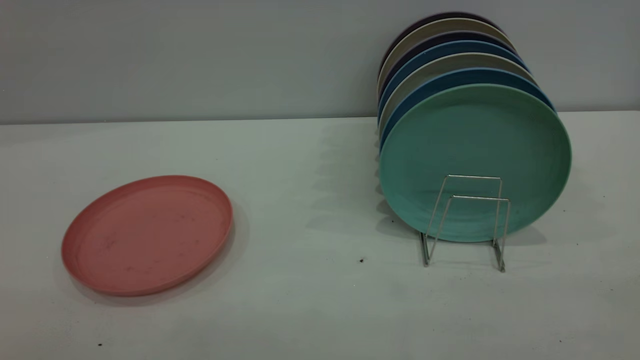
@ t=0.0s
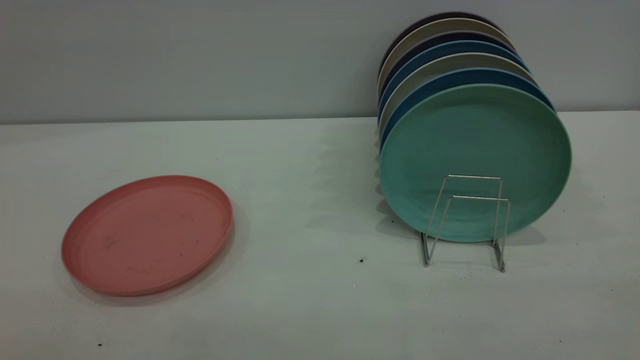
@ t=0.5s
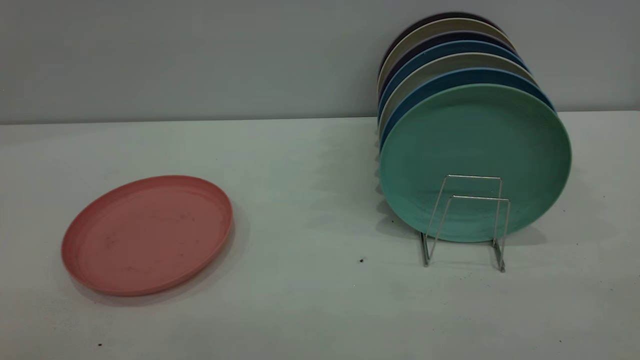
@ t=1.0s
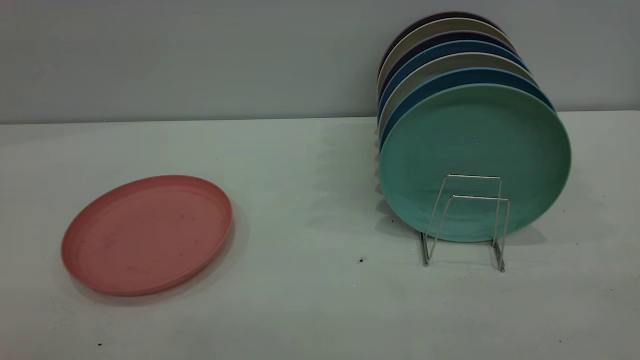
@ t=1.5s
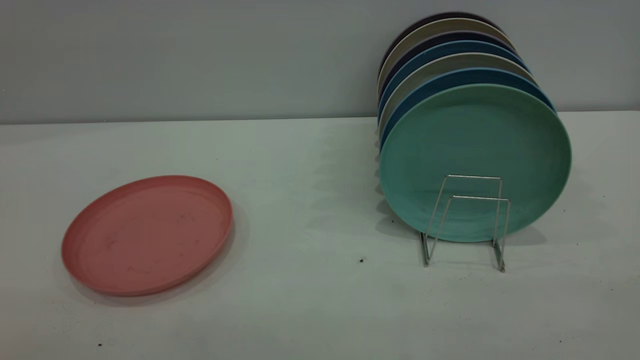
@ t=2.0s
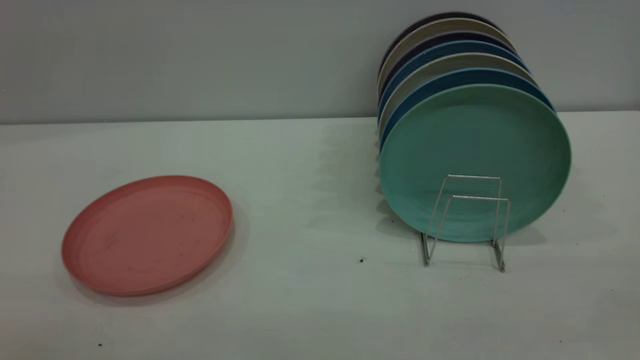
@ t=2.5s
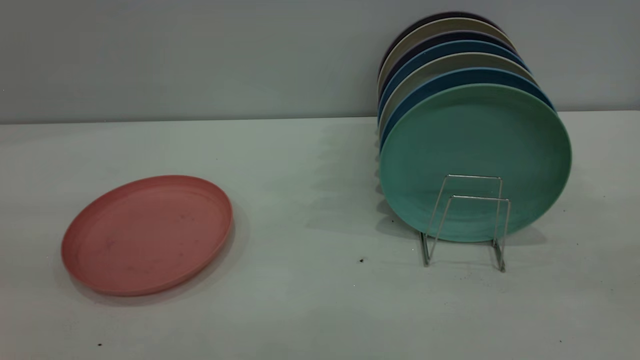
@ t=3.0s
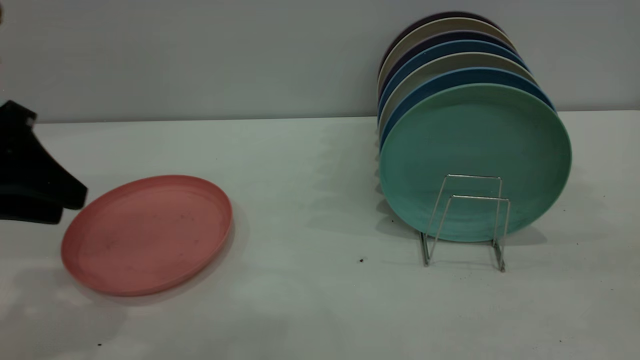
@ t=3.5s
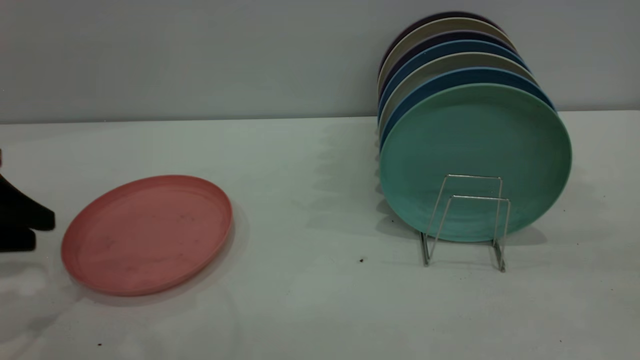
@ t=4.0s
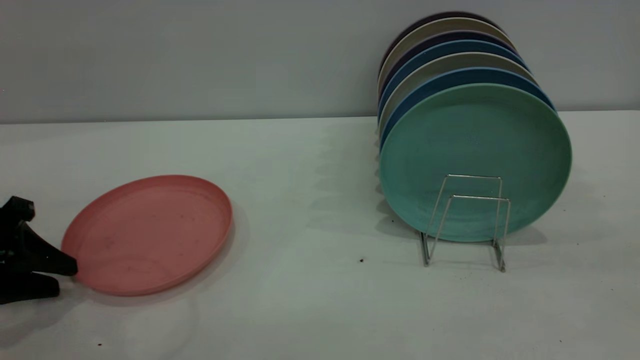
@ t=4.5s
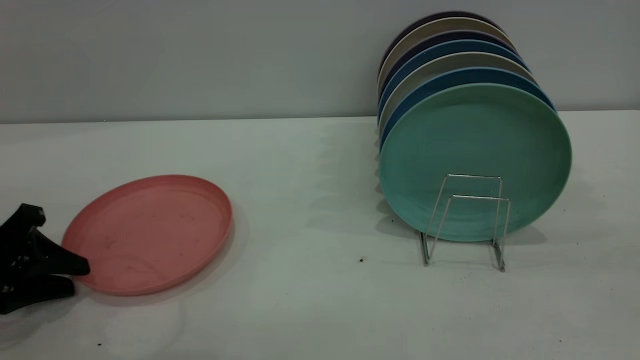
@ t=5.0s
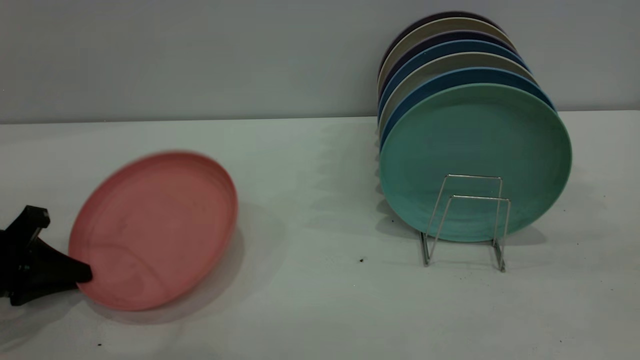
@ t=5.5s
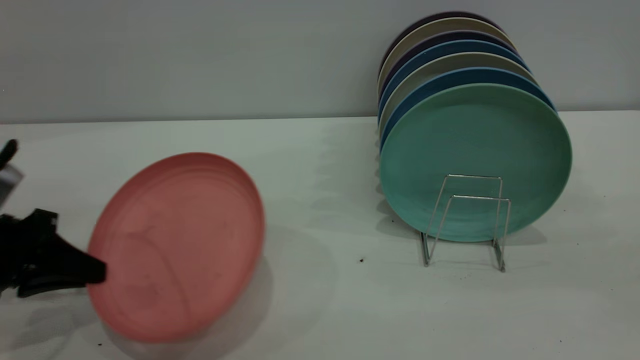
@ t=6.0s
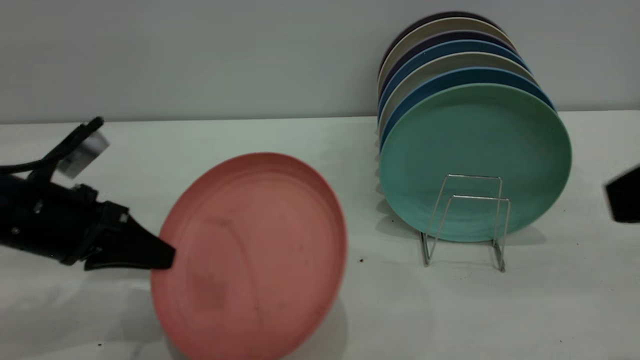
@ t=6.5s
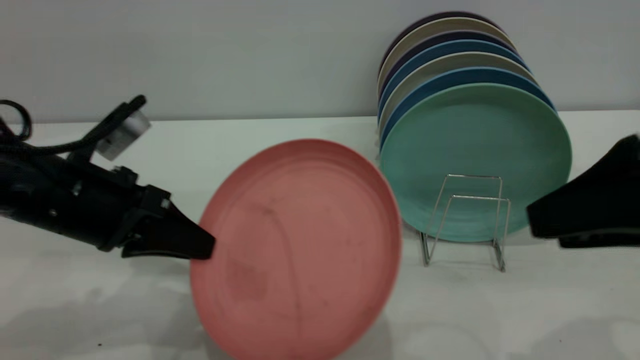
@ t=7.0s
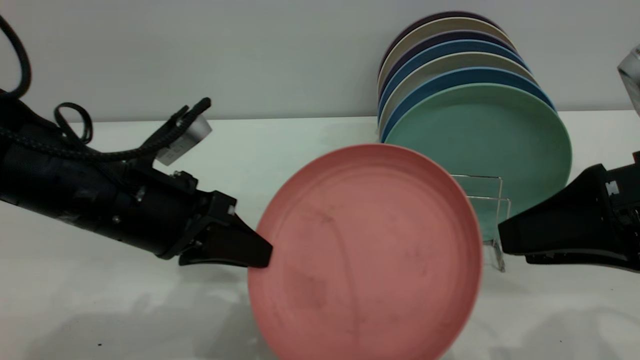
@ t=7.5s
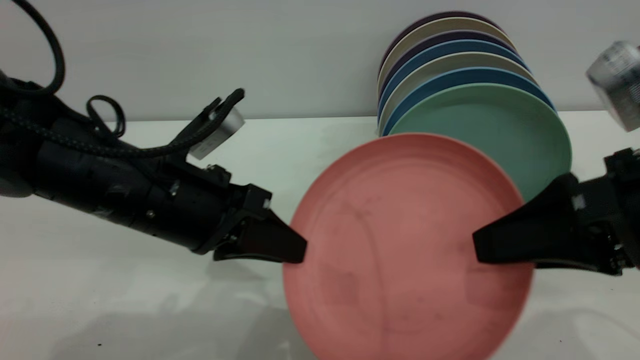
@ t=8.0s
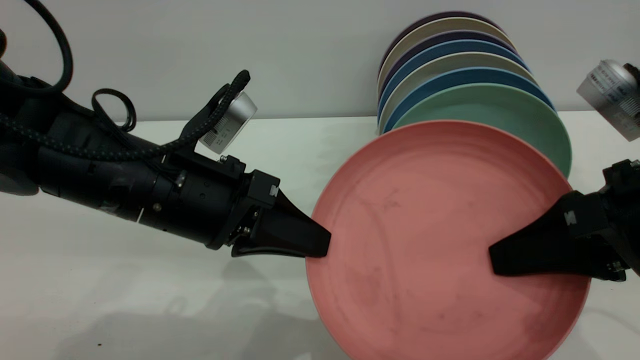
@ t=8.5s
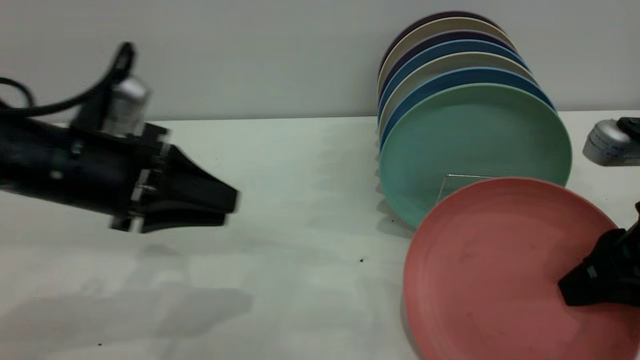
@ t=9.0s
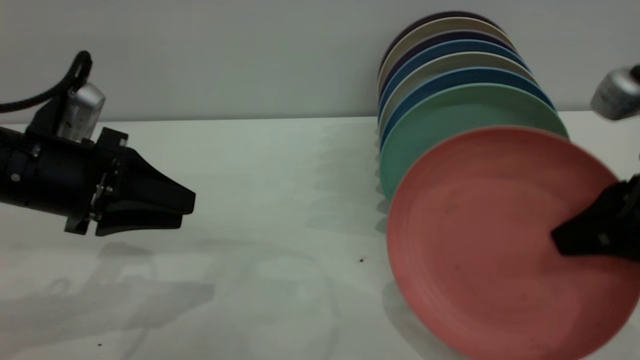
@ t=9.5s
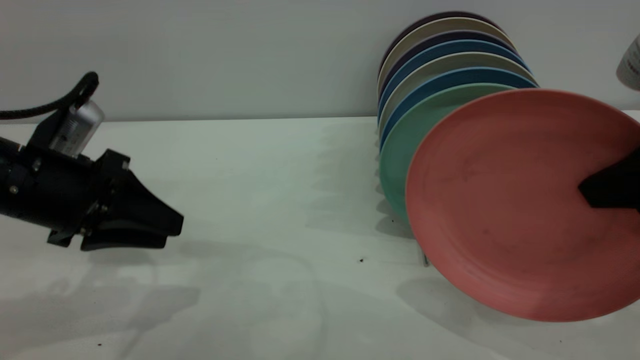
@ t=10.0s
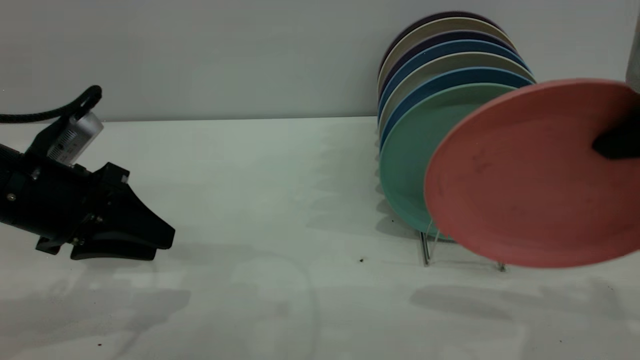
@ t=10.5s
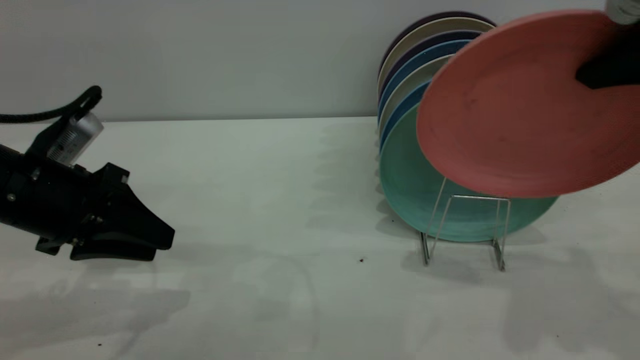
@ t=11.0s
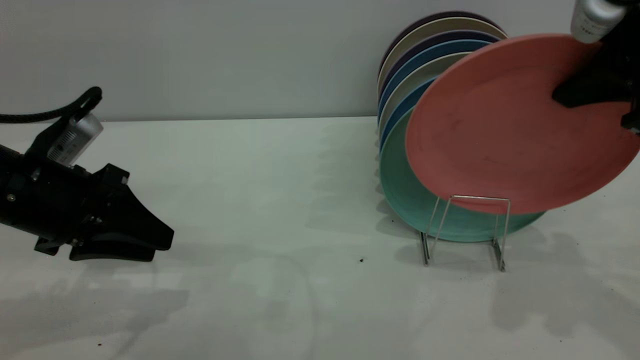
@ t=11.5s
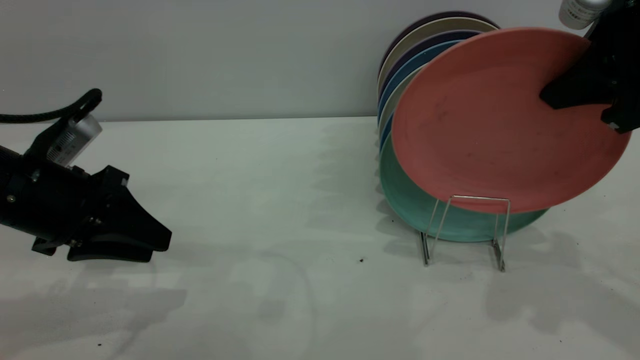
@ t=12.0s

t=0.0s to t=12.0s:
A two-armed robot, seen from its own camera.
Task of the whole recording: put the plate on the plate rack.
Step, t=0.0s to t=6.0s: Pick up the plate with the left gripper.
Step, t=6.5s to t=8.5s: Pass the plate from the left gripper to the right gripper.
t=0.0s to t=2.0s: The two grippers keep their place.
t=2.0s to t=4.0s: The left gripper moves forward and downward, some 35 cm.
t=4.0s to t=6.0s: The left gripper moves downward, about 5 cm, and closes its fingers.
t=6.0s to t=8.0s: The left gripper is displaced to the right by some 20 cm; the right gripper goes about 15 cm downward and forward.
t=8.0s to t=10.0s: The right gripper changes place by roughly 5 cm, and closes up. Meanwhile the left gripper goes approximately 10 cm to the left, and opens its fingers.
t=10.0s to t=12.0s: The right gripper is displaced forward by some 10 cm.

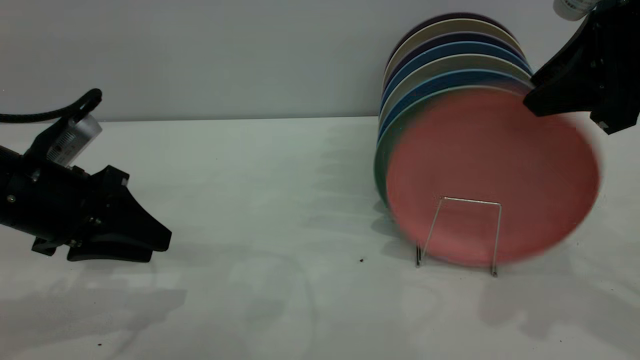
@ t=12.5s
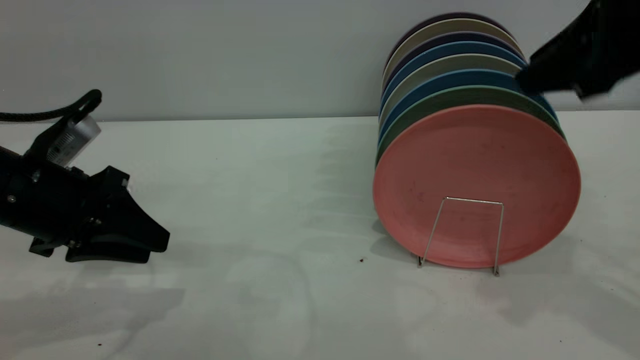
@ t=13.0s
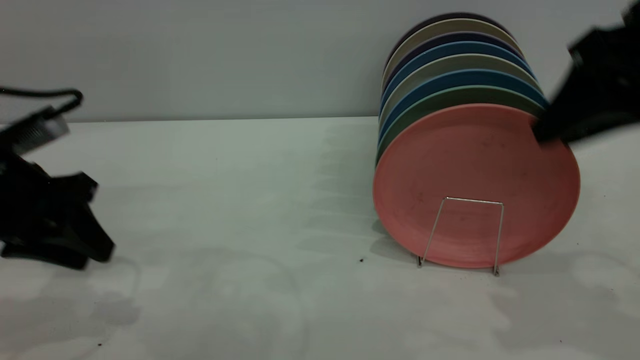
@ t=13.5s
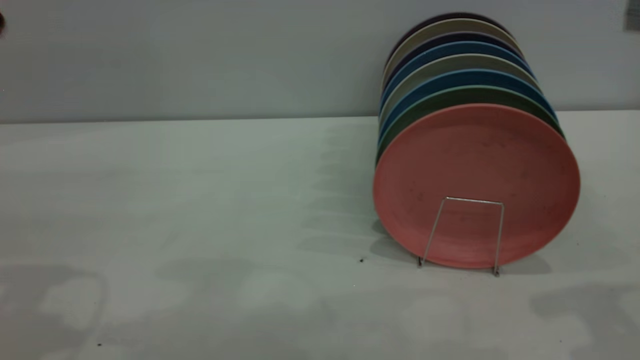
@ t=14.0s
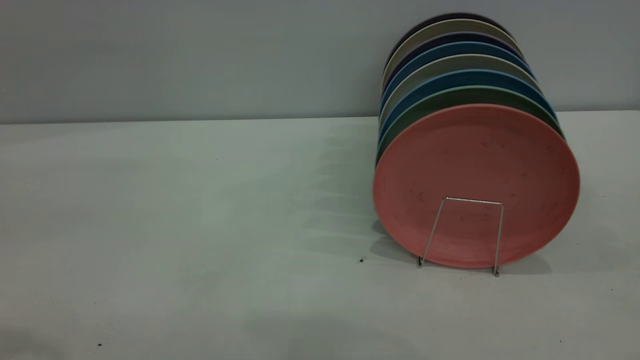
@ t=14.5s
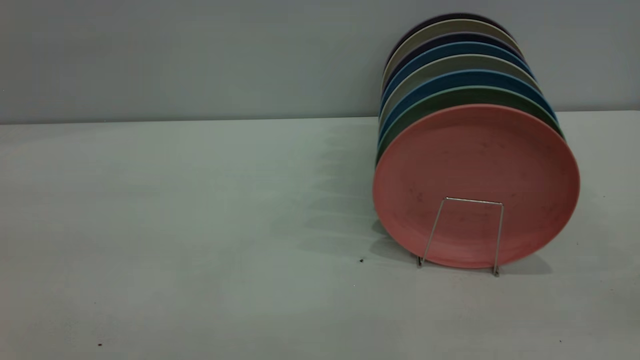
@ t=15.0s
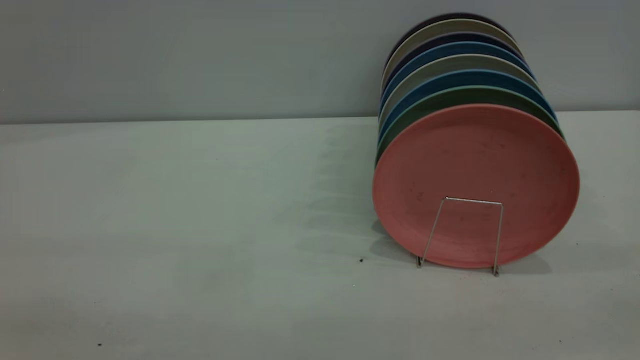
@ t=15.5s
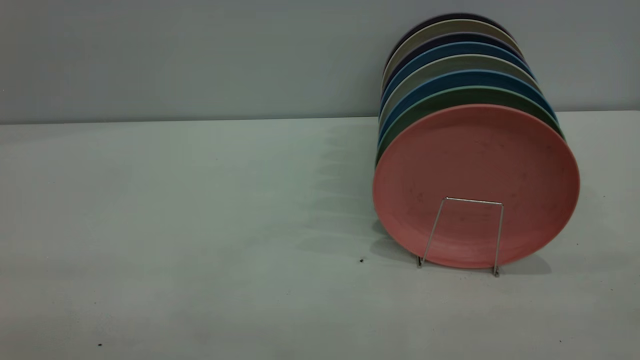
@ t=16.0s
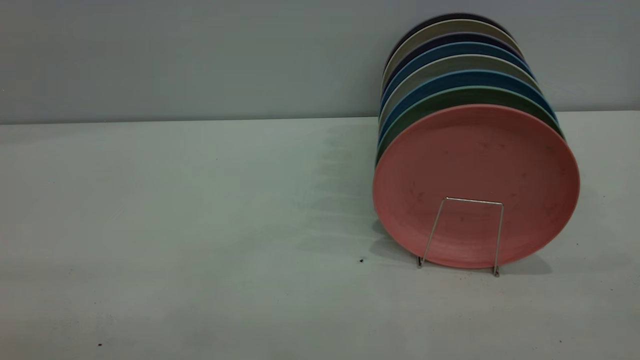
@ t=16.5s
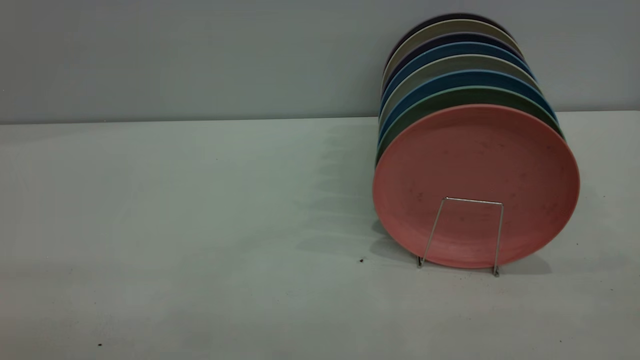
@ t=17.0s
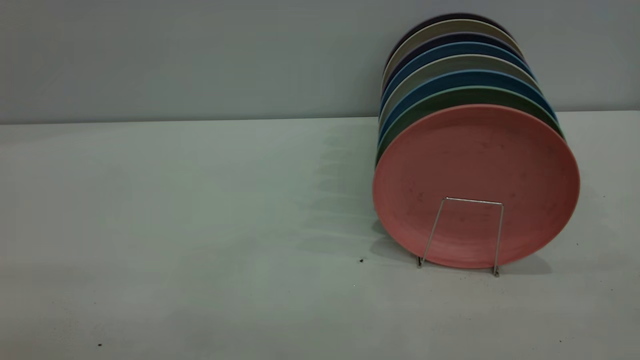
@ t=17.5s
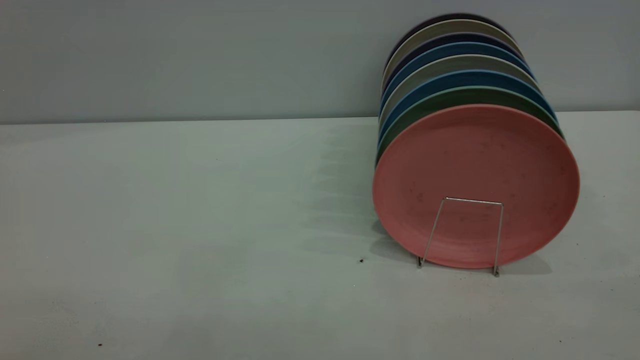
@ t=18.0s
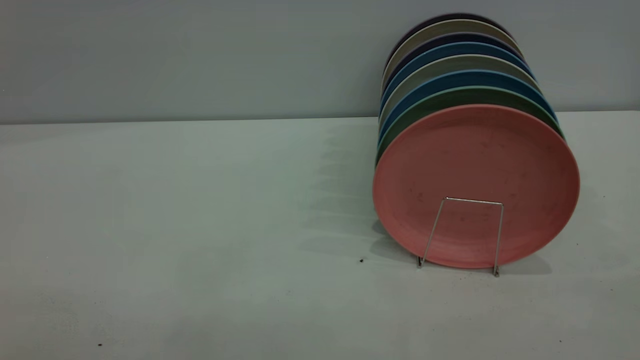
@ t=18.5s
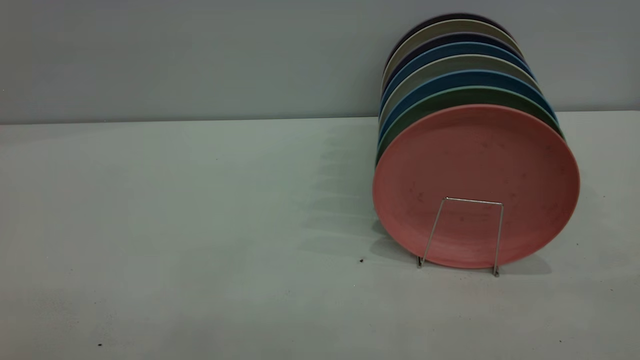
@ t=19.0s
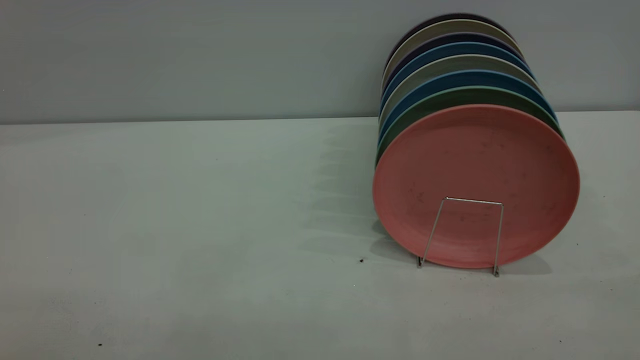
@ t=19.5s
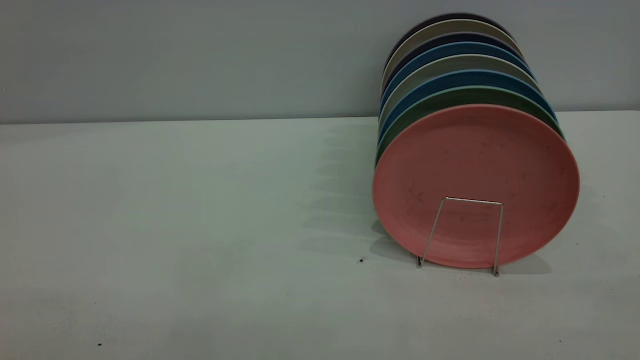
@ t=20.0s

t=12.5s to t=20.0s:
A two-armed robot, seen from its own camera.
Task of the whole recording: put the plate on the plate rack.
t=12.5s to t=14.5s: The left gripper goes some 30 cm upward and backward. Meanwhile the right gripper moves backward and upward, about 20 cm.
